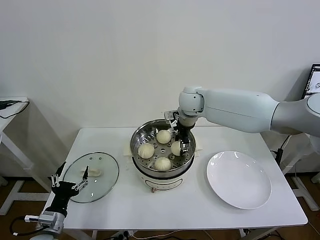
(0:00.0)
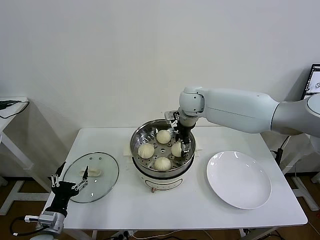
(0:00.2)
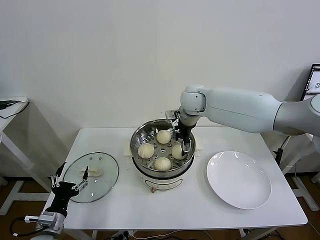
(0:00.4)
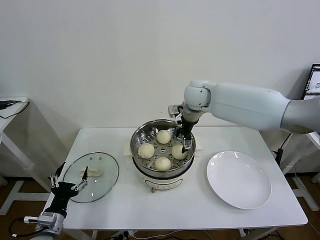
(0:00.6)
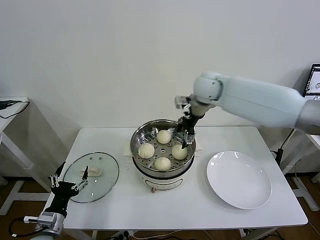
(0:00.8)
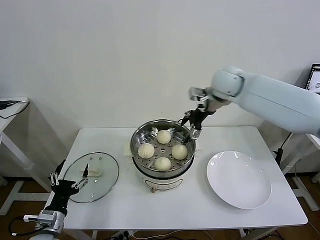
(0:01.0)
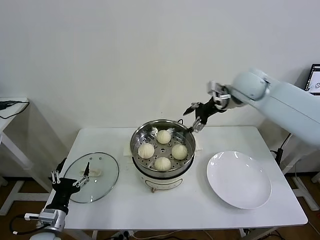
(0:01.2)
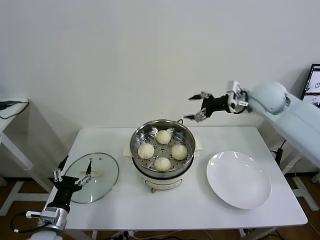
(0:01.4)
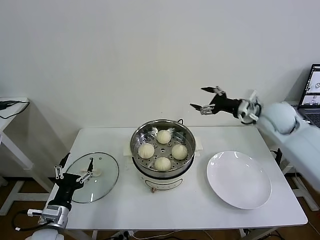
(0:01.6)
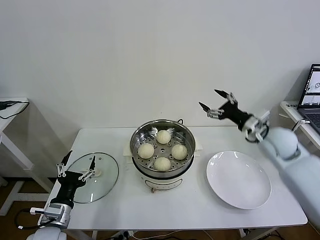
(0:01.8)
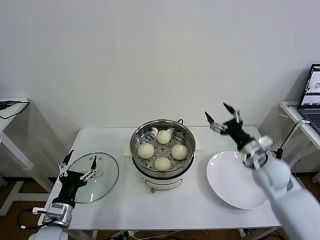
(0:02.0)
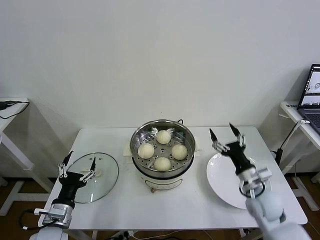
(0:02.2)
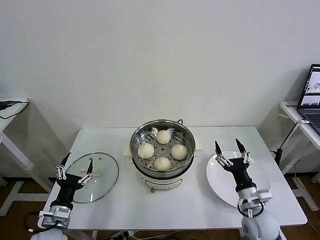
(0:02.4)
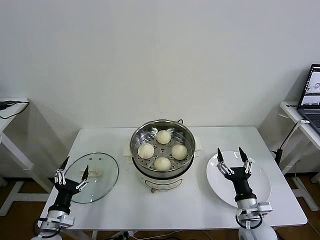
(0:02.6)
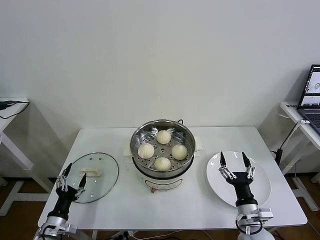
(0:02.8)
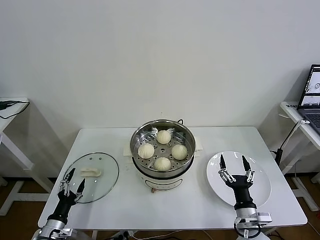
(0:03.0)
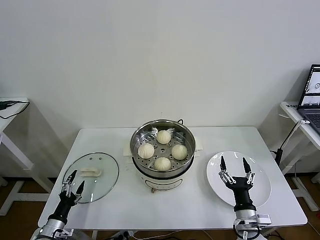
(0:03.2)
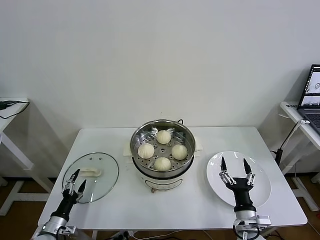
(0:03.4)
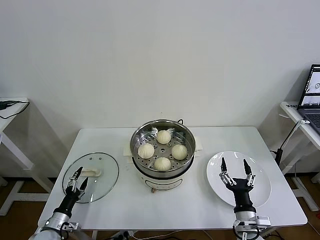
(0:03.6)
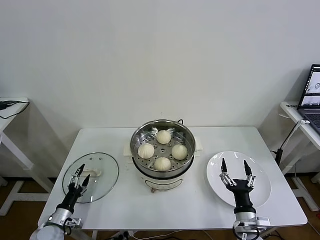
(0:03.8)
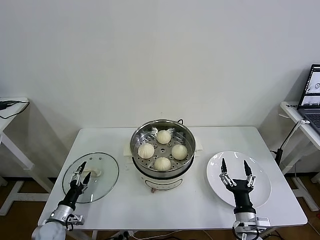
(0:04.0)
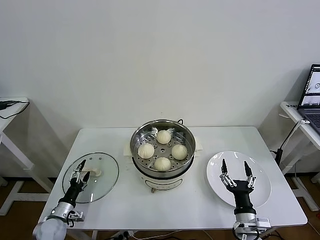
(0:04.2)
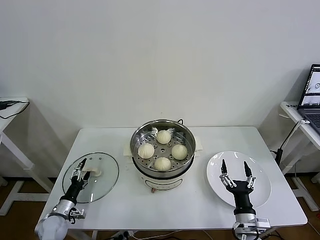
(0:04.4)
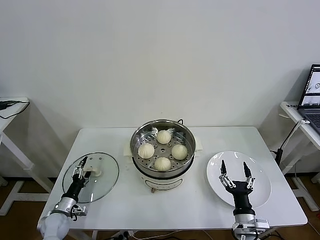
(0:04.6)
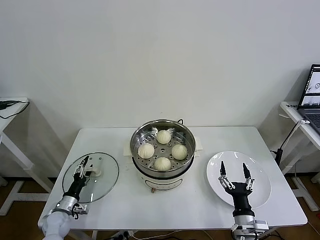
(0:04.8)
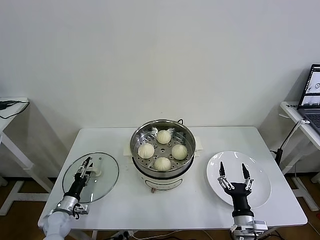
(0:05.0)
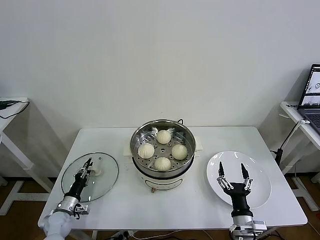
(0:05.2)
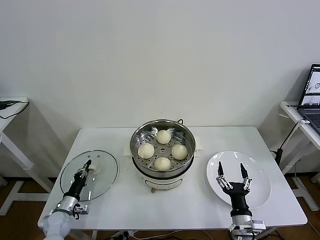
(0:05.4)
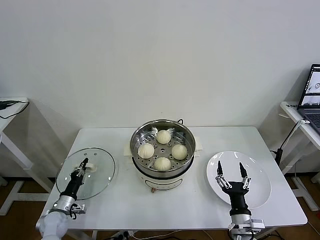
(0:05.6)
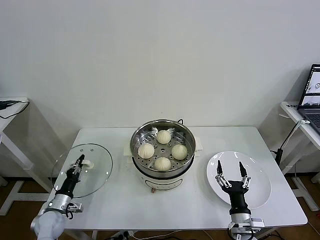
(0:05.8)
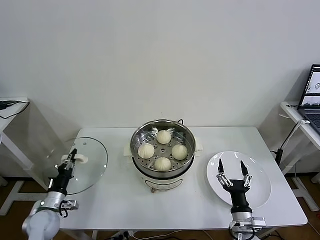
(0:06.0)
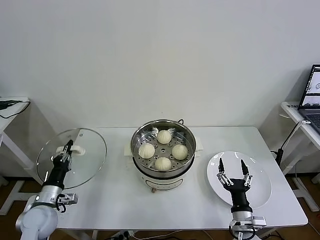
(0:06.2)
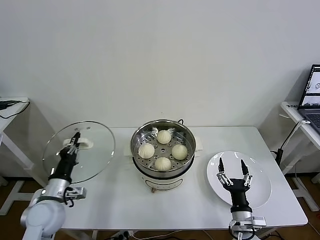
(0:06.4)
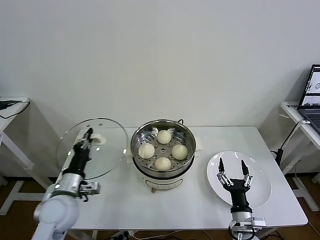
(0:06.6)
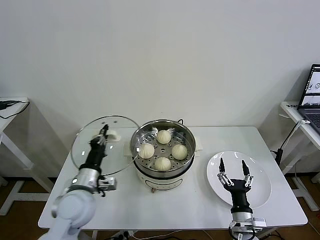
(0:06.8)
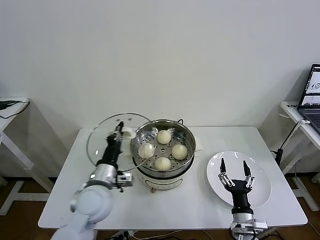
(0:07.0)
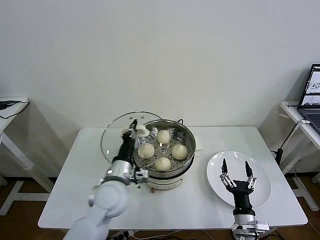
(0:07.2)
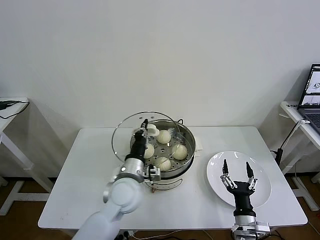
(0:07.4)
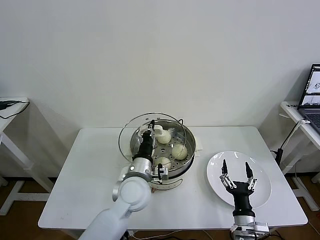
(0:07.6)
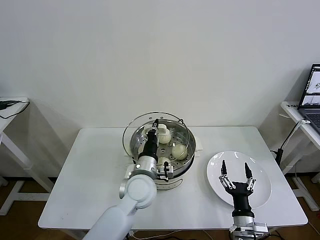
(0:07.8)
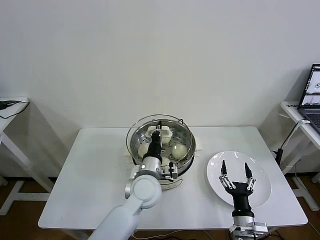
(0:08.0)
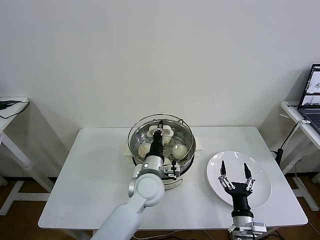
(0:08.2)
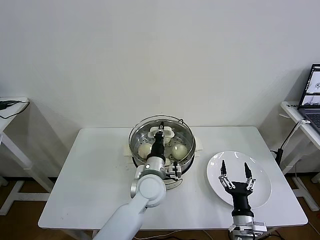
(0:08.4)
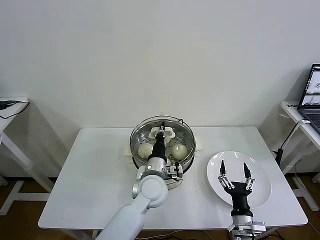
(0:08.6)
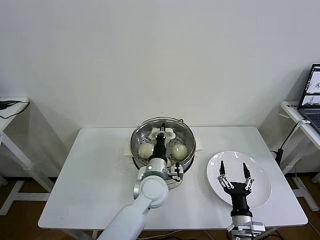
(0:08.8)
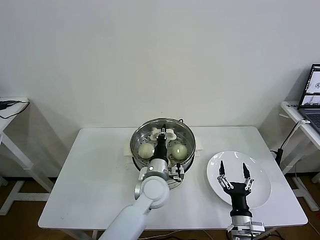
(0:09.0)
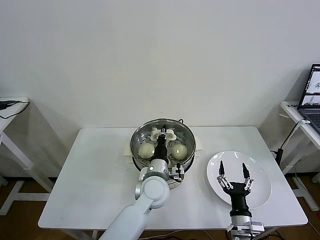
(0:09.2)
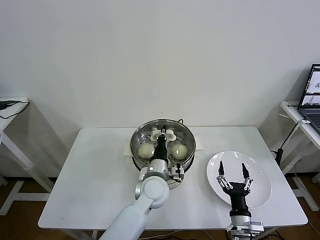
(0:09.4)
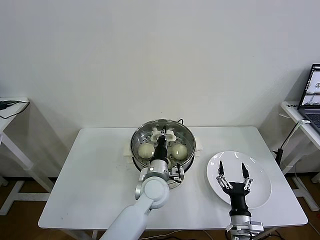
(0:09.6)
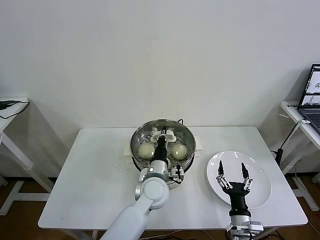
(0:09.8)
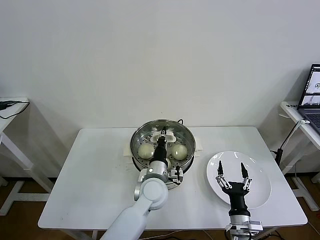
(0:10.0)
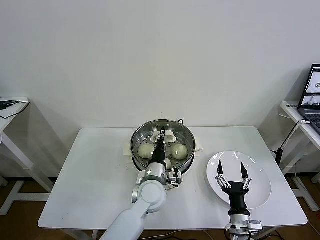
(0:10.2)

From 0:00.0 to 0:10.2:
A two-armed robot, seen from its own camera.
Task of the whole recording: take steamed baozi put them in steamer then cover it.
Step, from 0:00.4 to 0:05.4: Grasp the pot lid with left gripper.
From 0:00.0 to 0:01.4: The right gripper travels to the right by about 20 cm, and opens up.
From 0:01.4 to 0:03.0: The right gripper goes roughly 40 cm downward and backward. The left gripper goes about 10 cm downward and to the left.
From 0:03.0 to 0:04.4: The left gripper shifts about 10 cm forward.
From 0:04.4 to 0:05.8: The left gripper closes.
From 0:05.8 to 0:07.2: The left gripper is displaced to the right and upward by some 35 cm.
From 0:07.2 to 0:08.8: The left gripper travels to the right by about 10 cm.
From 0:08.8 to 0:10.2: The grippers make only small movements.

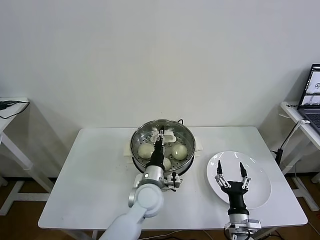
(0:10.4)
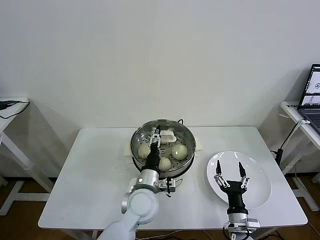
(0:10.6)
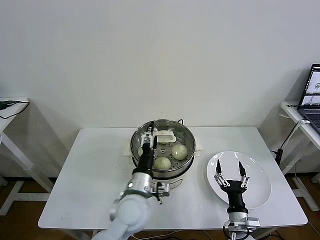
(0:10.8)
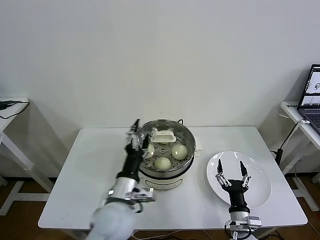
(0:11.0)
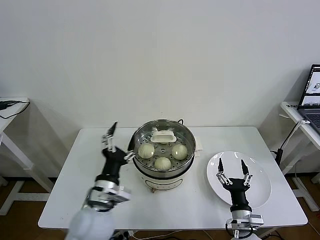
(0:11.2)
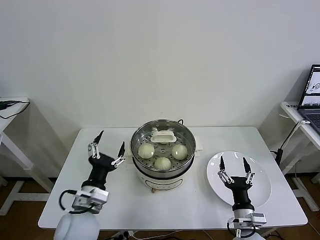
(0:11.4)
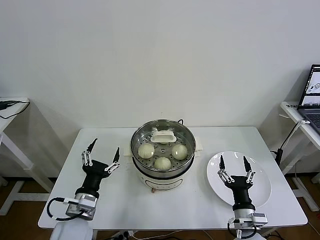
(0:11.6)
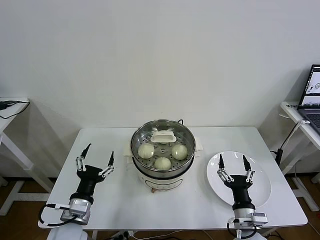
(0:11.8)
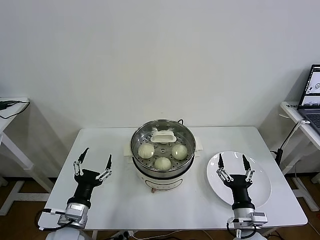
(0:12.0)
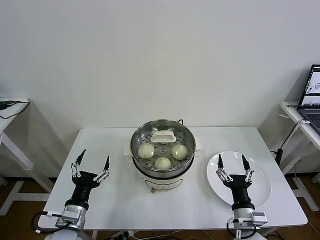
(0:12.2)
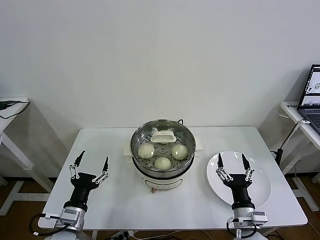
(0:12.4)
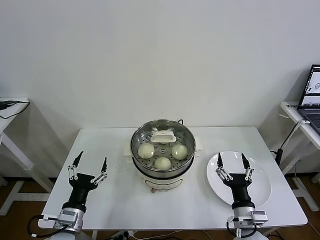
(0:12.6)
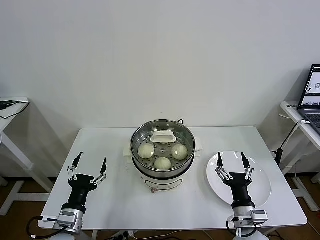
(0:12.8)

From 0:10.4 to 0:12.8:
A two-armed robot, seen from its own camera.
Task of the whole recording: take steamed baozi put them in steamer then cover it.
From 0:10.4 to 0:11.6: The left gripper travels to the left and backward by about 20 cm, and opens its fingers.
From 0:11.6 to 0:12.8: The left gripper moves approximately 5 cm.
